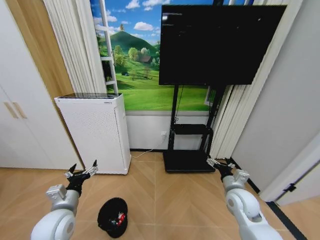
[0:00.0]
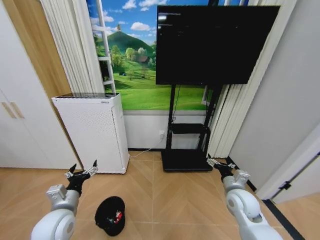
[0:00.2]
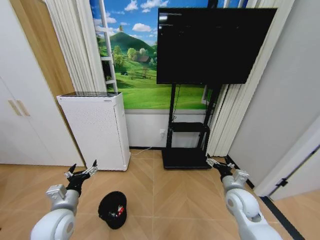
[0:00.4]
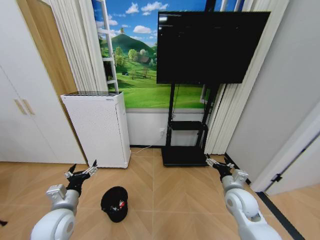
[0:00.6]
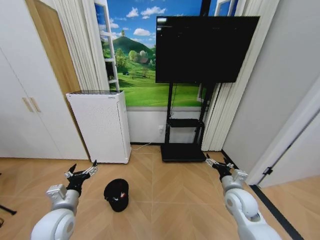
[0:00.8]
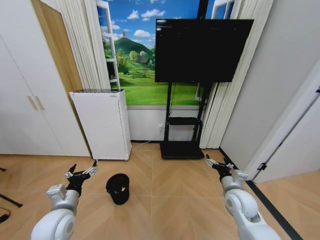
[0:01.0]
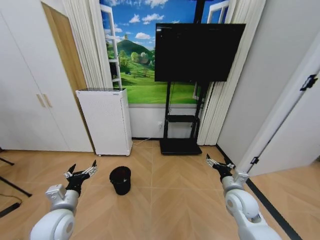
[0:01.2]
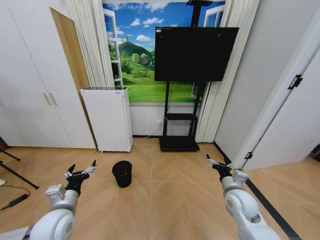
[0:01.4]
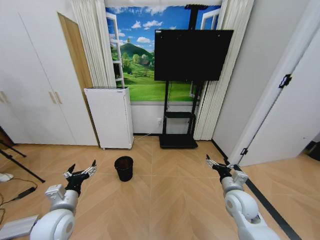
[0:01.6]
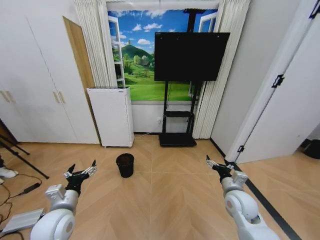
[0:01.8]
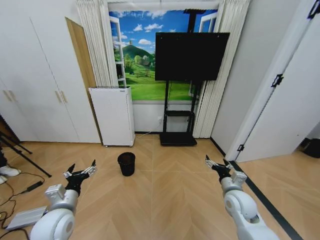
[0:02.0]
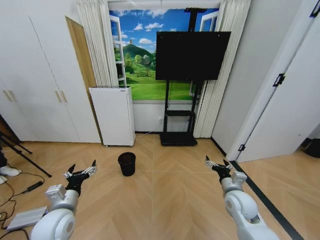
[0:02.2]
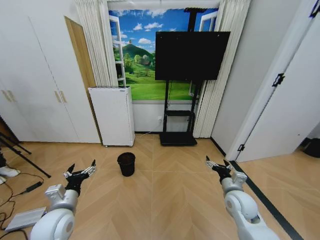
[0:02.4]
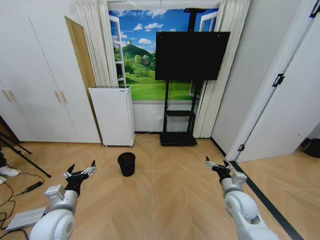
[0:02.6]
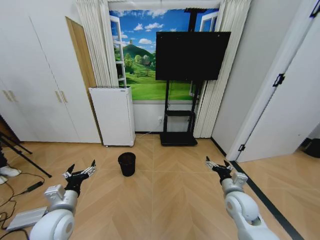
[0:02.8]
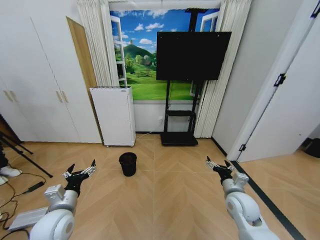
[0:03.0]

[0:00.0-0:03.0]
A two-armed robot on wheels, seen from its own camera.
Task of the whole recording: Pick up the trash bin and place the garbage on the floor into it.
0:01.6 to 0:03.0: Both grippers stay put.

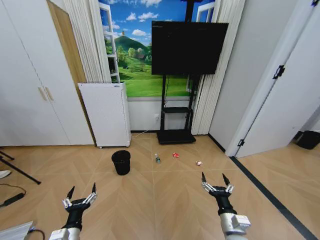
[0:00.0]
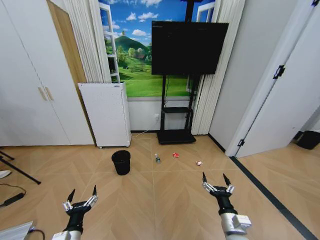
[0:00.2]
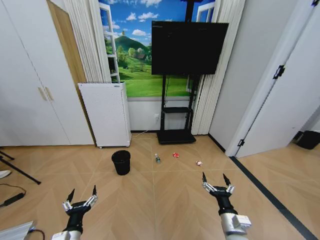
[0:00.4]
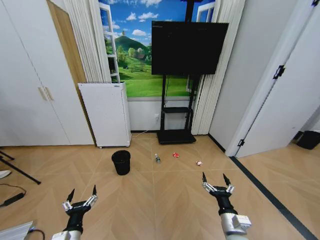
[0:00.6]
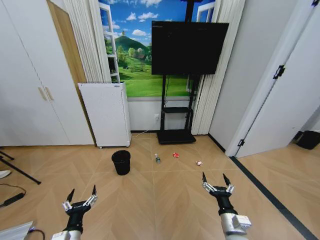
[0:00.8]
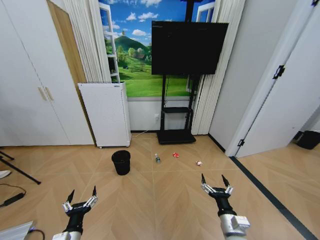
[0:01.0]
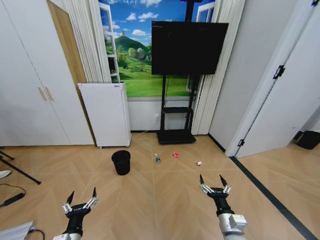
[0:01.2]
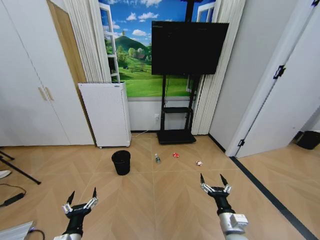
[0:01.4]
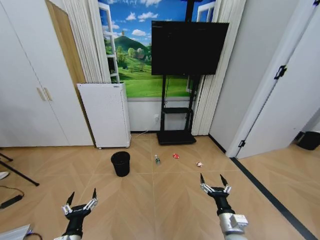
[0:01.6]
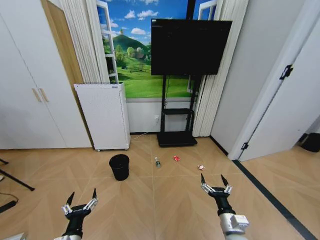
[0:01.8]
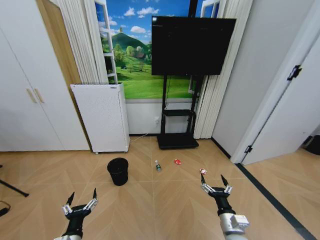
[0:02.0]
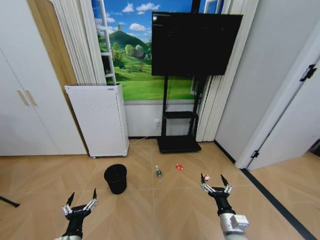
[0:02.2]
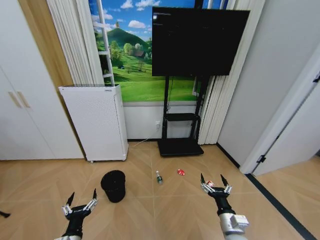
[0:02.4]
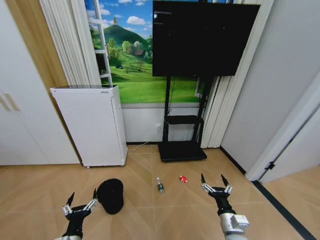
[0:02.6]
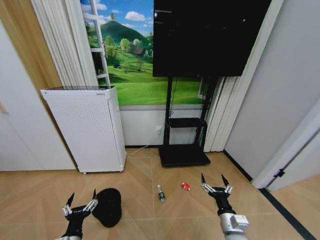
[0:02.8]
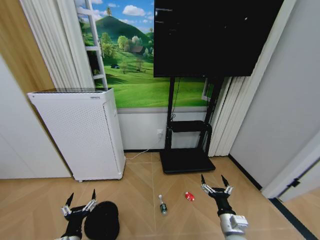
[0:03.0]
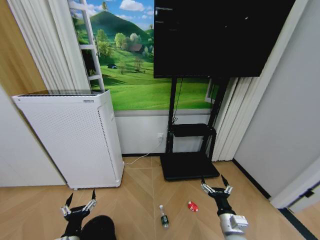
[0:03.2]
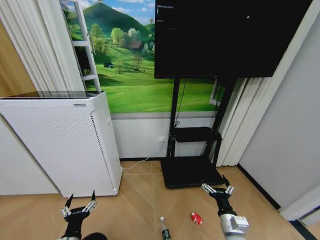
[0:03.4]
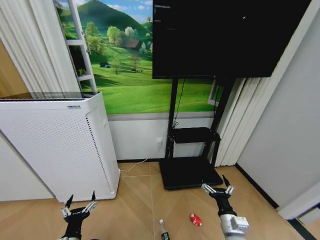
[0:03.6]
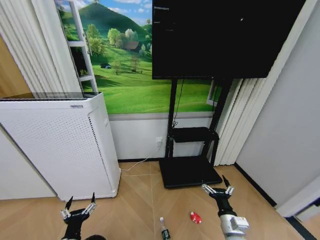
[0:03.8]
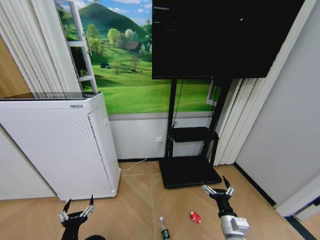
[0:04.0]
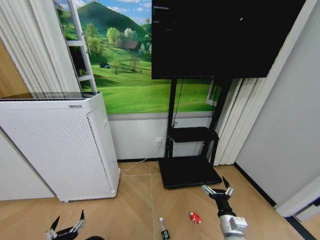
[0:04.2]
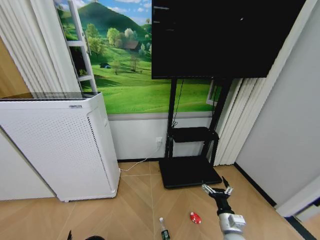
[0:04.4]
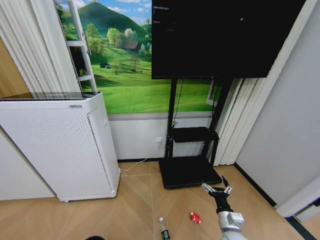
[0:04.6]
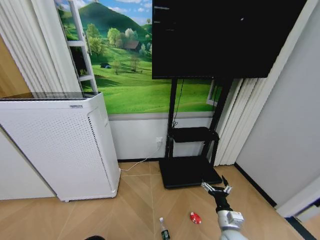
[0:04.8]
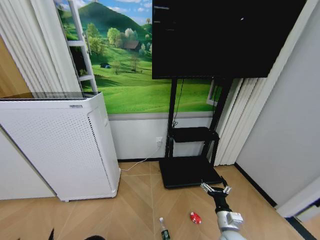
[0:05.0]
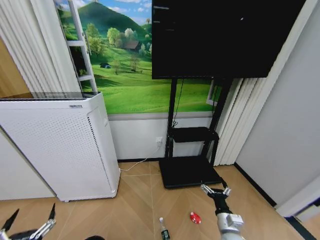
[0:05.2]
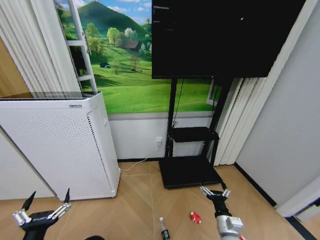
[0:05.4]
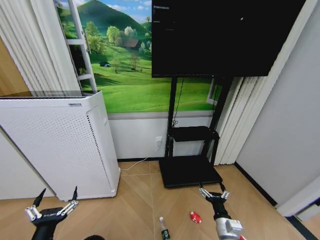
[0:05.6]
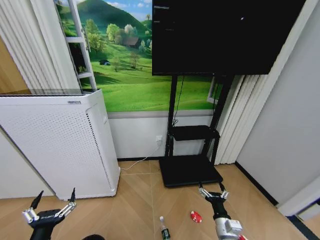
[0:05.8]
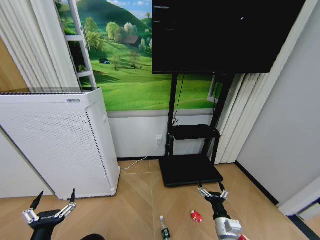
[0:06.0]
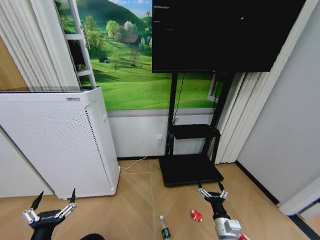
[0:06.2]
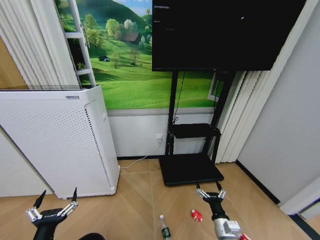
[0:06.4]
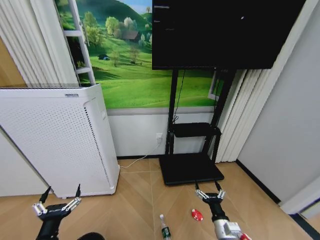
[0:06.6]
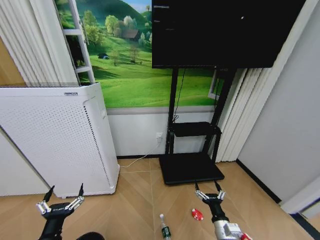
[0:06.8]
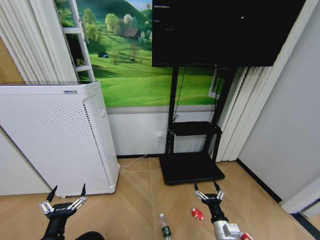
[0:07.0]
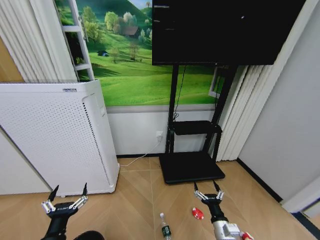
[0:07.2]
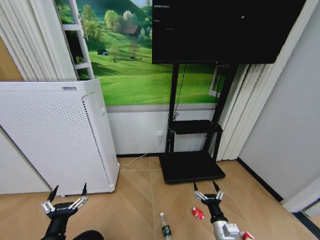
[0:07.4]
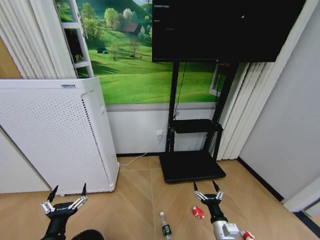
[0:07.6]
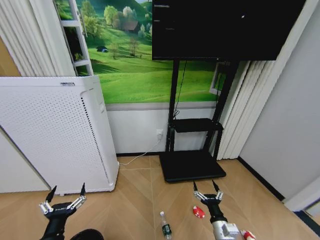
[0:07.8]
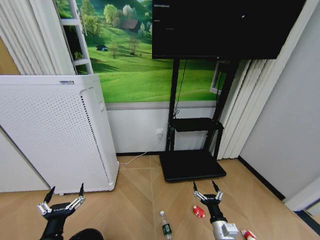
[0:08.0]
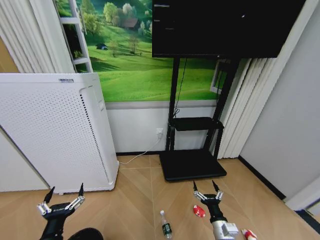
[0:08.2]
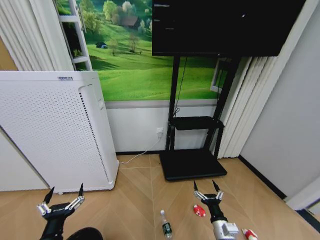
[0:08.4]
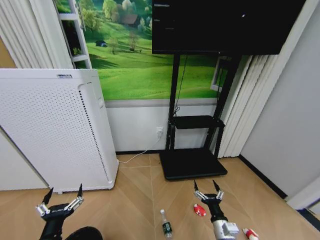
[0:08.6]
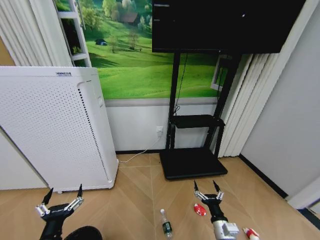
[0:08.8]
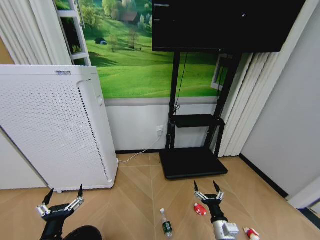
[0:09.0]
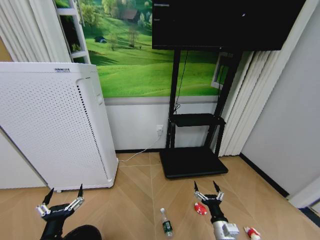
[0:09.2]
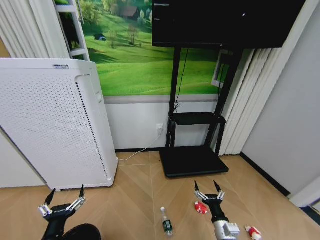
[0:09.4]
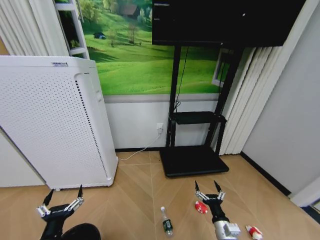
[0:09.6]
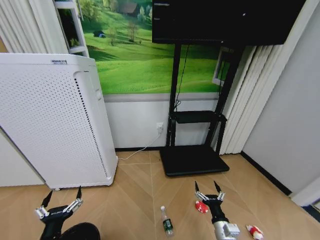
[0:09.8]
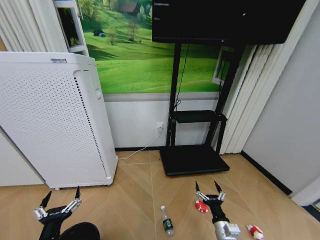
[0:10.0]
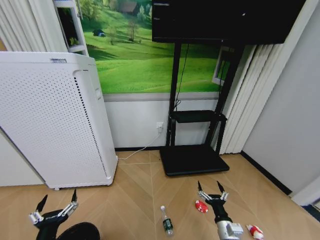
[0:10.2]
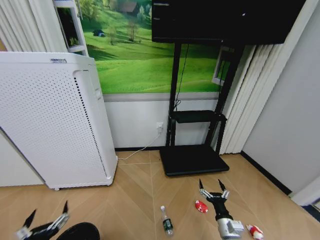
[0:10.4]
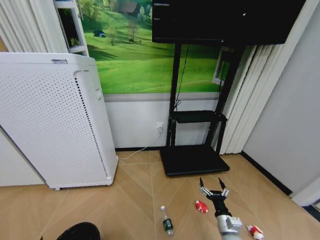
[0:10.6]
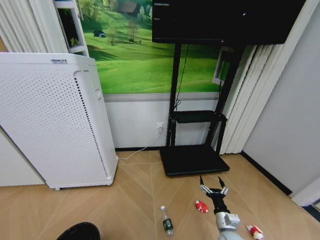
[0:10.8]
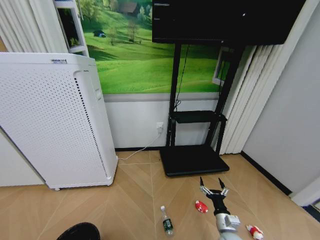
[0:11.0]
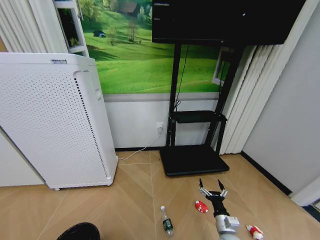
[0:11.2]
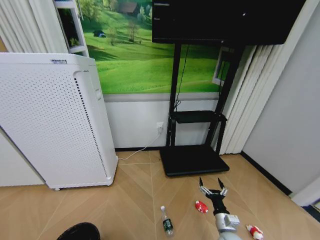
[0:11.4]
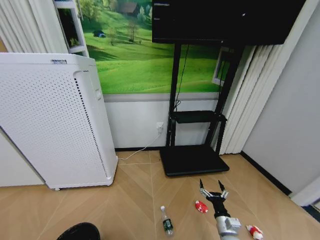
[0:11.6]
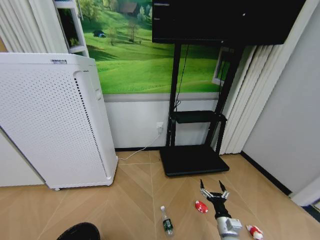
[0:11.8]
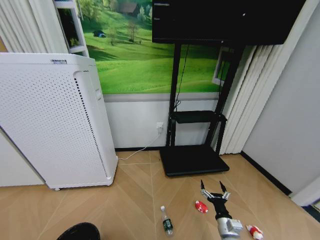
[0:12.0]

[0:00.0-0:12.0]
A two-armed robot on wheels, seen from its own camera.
Task of the whole recording: Pick up the trash bin and place the garbage on the floor into it.
0:03.0 to 0:04.4: The left gripper moves backward, roughly 10 cm.
0:04.4 to 0:06.0: The left gripper goes backward and returns, some 10 cm each way.
0:07.6 to 0:09.0: The two grippers keep their place.
0:09.0 to 0:10.4: The left gripper ends up about 5 cm from where it was.
0:10.4 to 0:12.0: The left gripper moves downward, about 5 cm.

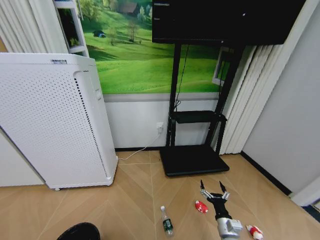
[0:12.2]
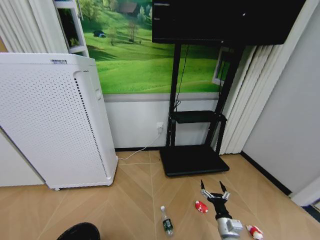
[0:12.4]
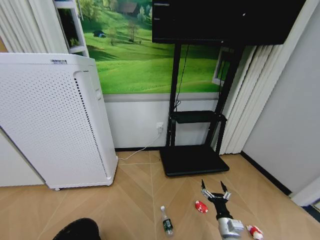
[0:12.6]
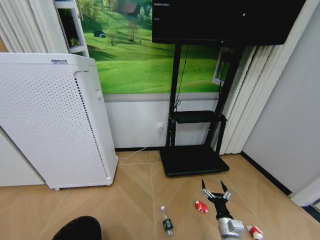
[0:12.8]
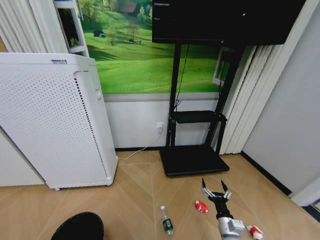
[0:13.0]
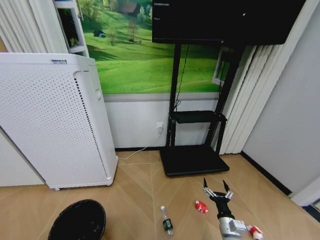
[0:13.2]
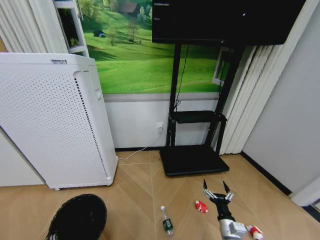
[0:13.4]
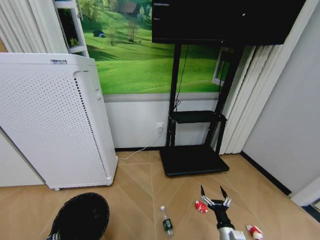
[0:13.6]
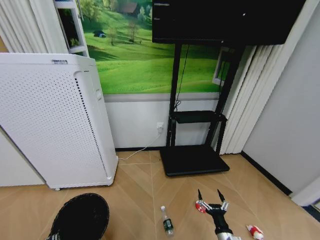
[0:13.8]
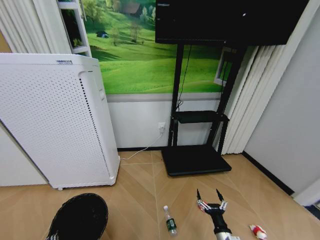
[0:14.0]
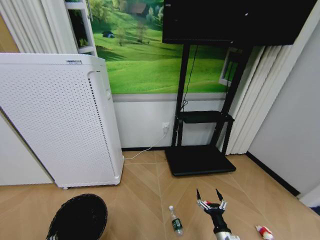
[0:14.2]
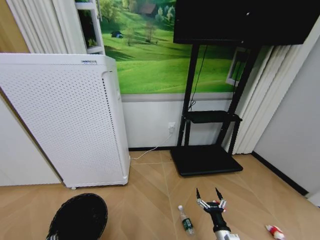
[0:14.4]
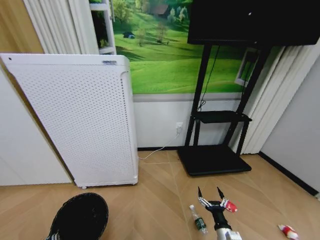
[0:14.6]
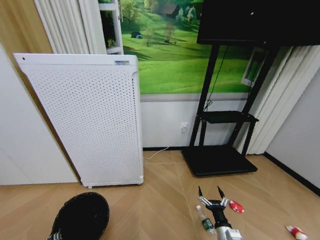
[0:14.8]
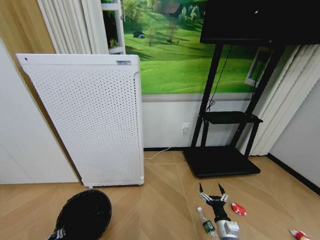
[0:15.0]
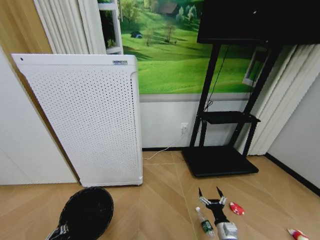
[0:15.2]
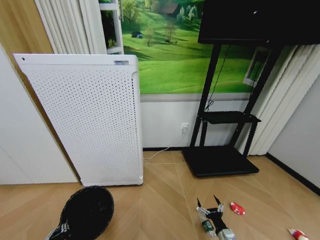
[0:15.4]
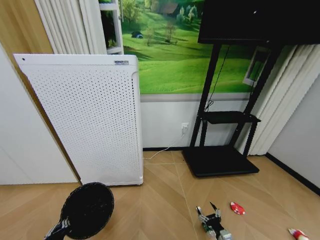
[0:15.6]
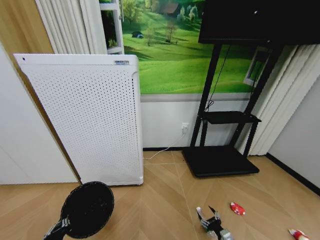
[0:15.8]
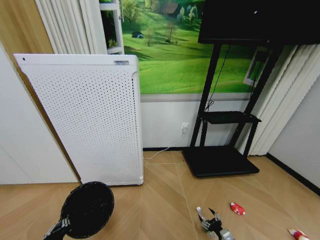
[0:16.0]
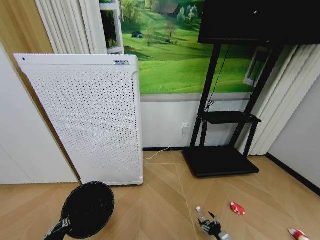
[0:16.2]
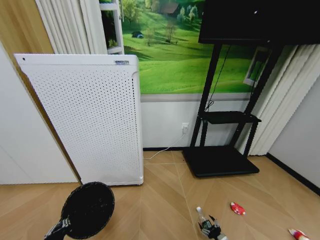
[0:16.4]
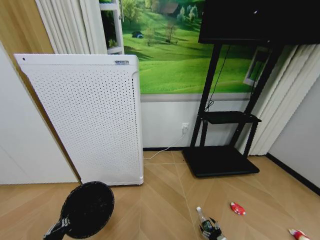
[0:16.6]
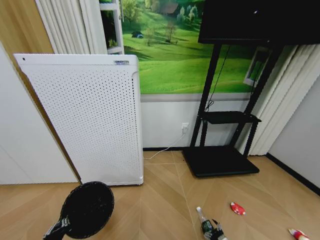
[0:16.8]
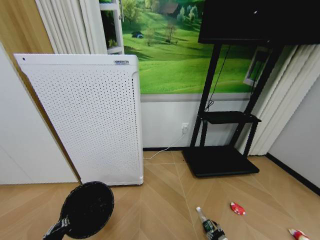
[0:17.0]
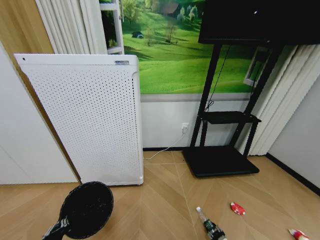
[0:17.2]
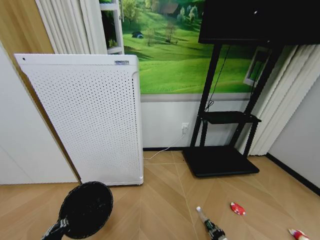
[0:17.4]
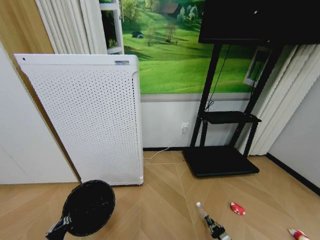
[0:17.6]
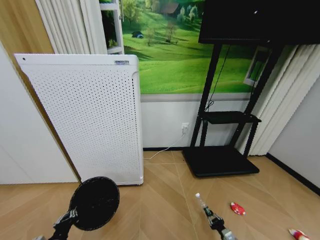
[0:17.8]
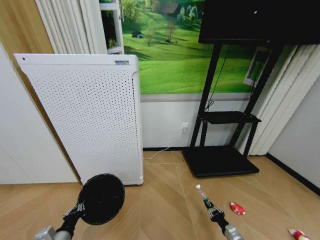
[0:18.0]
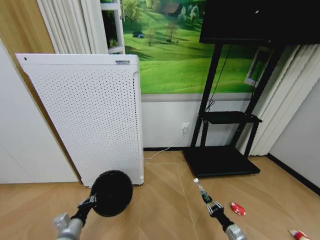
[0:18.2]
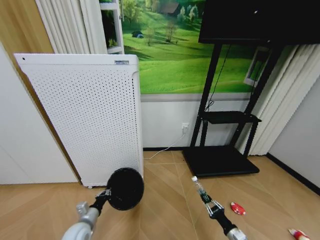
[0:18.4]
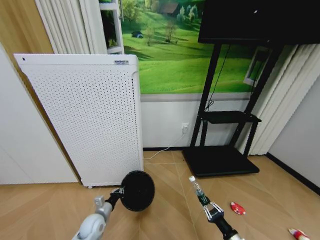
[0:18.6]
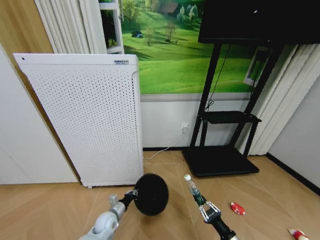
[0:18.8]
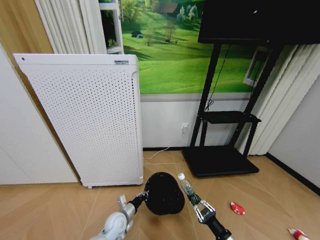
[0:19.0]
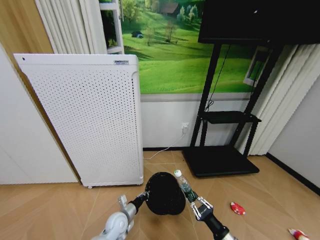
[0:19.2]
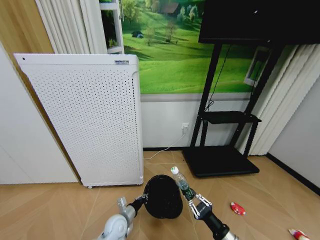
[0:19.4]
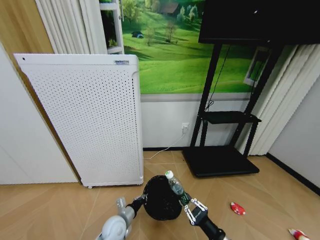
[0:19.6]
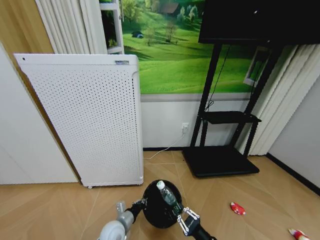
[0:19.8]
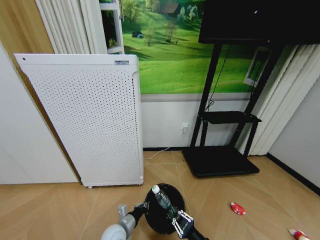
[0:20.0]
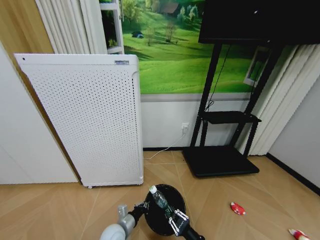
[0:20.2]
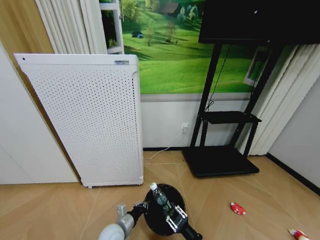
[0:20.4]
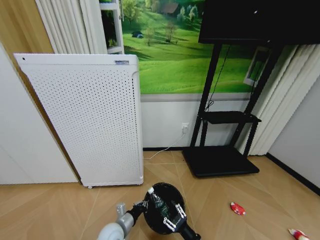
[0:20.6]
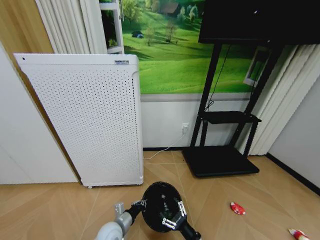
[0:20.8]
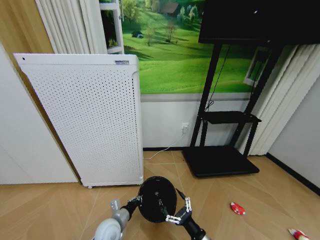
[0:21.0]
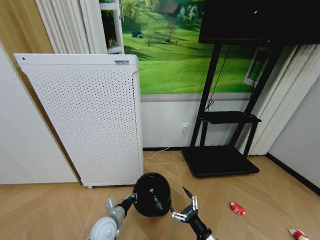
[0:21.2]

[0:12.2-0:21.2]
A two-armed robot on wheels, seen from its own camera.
Task of the whole recording: Pick up the trash bin and place the garbage on the floor into it.
0:12.2 to 0:13.8: The left gripper closes up.
0:15.2 to 0:16.6: The right gripper moves downward and to the right, some 20 cm.
0:16.6 to 0:18.2: The right gripper travels upward by approximately 10 cm, and closes up. Meanwhile the left gripper travels forward by some 10 cm.
0:18.2 to 0:19.8: The right gripper moves to the left, upward and backward, approximately 20 cm. The left gripper heads to the right, covering some 15 cm.
0:19.8 to 0:21.2: The right gripper opens.
